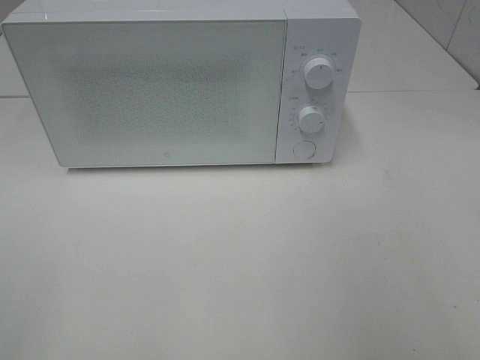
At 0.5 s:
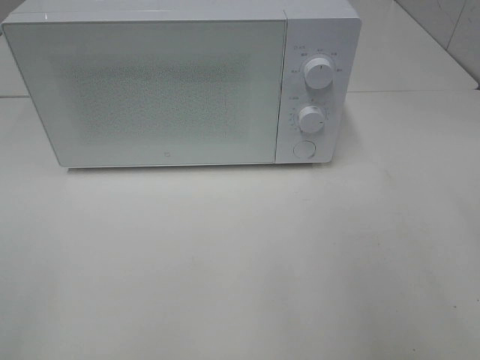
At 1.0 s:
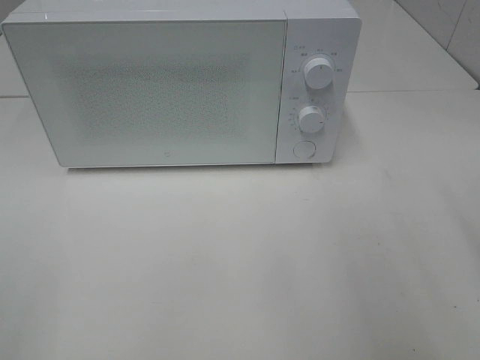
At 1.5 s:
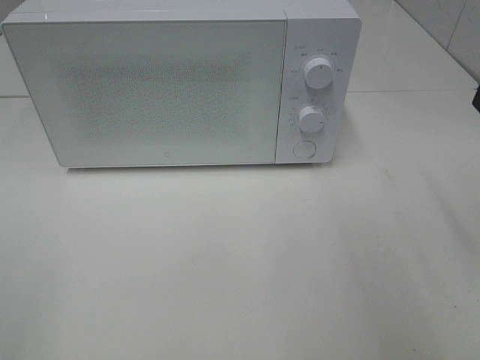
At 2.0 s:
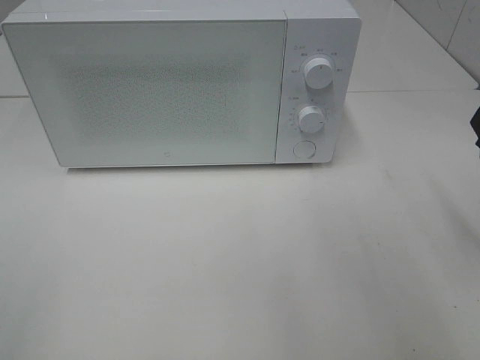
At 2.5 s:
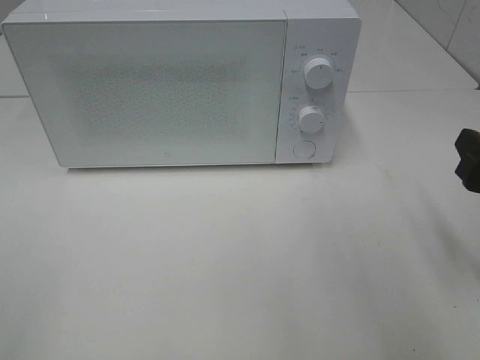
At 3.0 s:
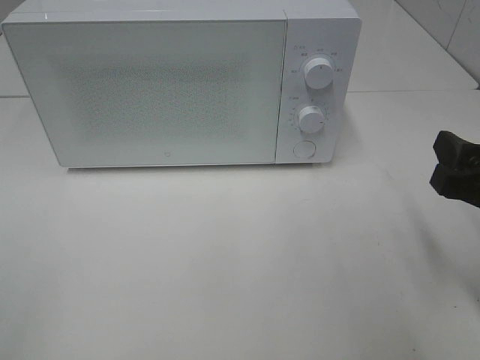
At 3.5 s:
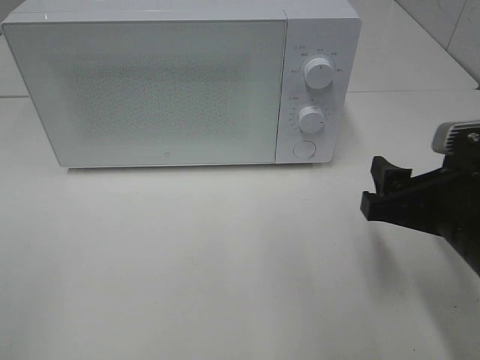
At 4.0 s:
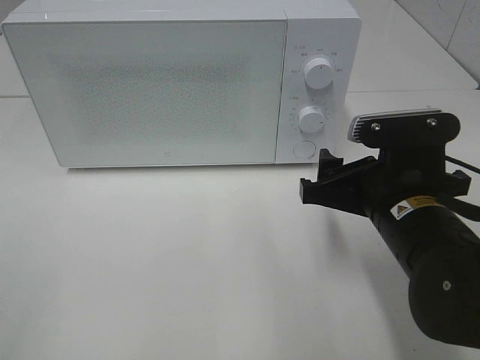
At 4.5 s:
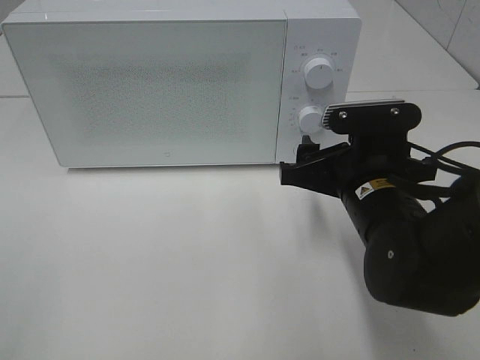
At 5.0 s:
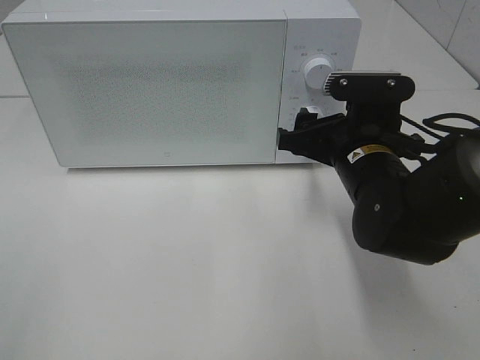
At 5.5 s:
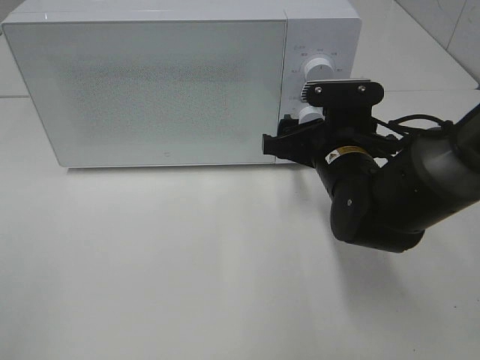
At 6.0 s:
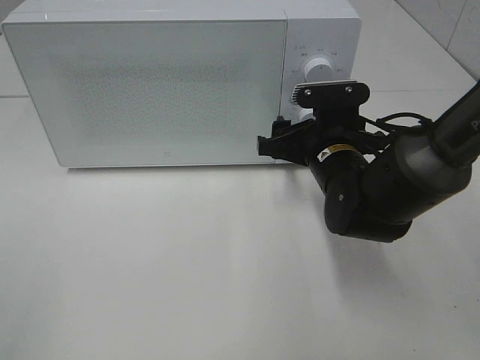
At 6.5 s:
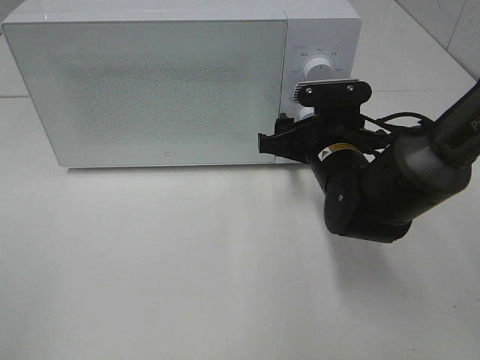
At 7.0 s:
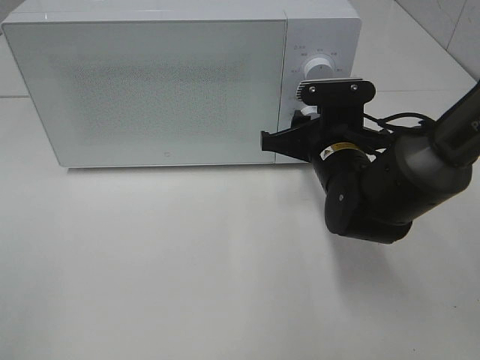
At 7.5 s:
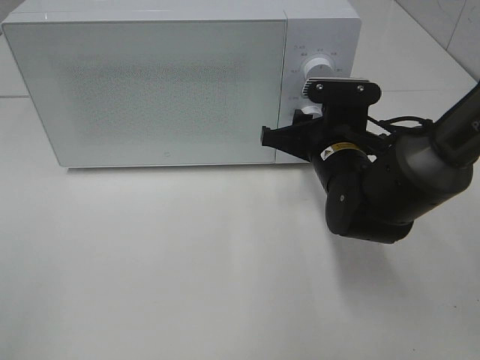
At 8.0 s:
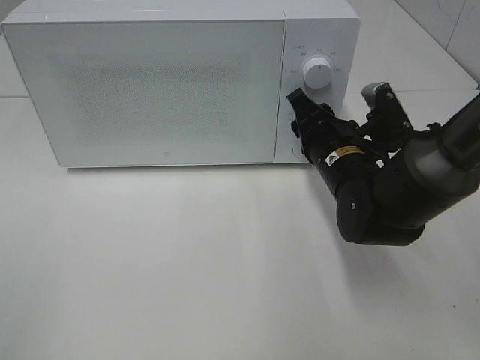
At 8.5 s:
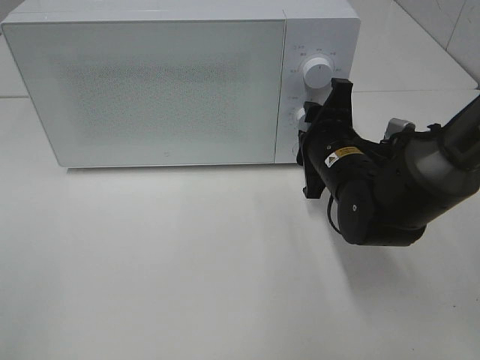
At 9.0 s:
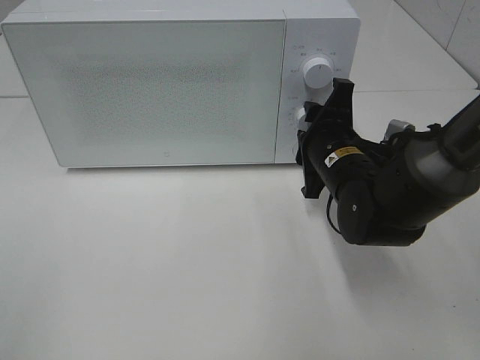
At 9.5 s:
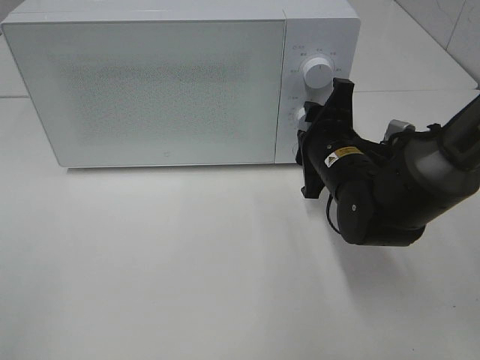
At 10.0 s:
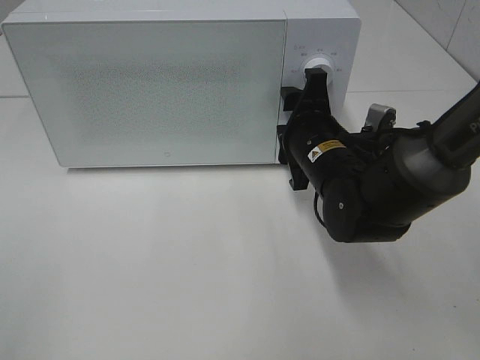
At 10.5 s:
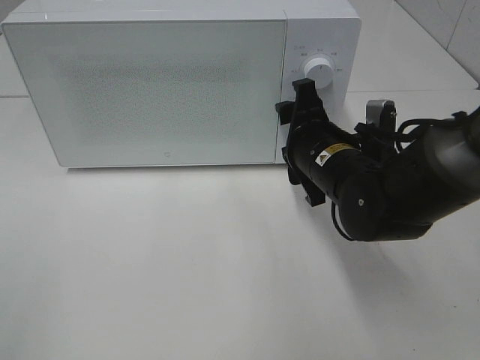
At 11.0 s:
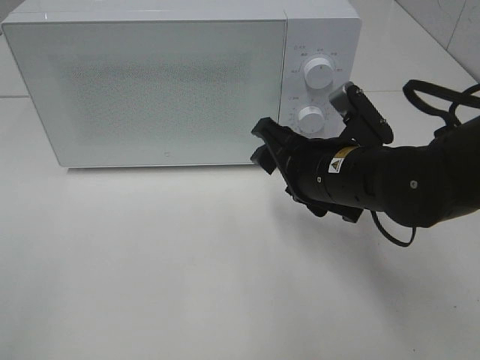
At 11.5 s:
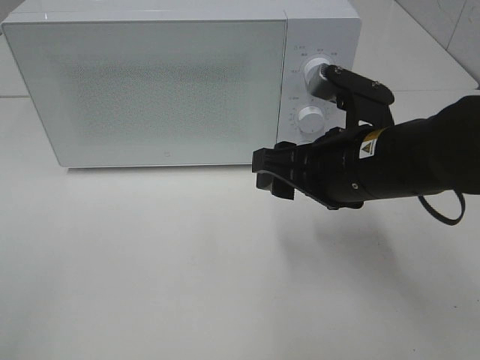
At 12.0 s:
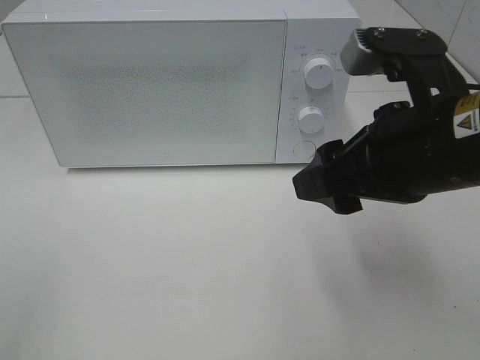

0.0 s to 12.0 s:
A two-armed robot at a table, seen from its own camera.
Task of the whole recording: Heat the burger.
Step, 0.0 to 9.5 s: Right hand: twist timer button.
2.0 to 4.0 s: The right gripper heads to the left, covering some 15 cm.
4.0 to 6.0 s: The right gripper goes roughly 10 cm forward.
6.0 to 8.0 s: The right gripper closes its fingers.
10.0 to 12.0 s: The right gripper shifts approximately 20 cm backward and upward.

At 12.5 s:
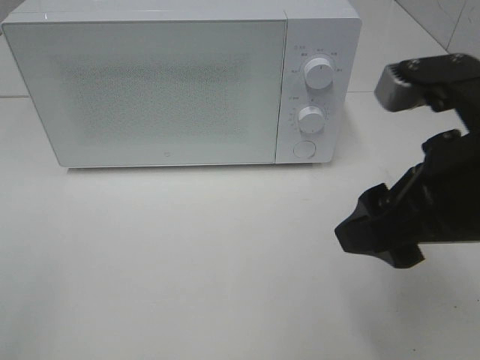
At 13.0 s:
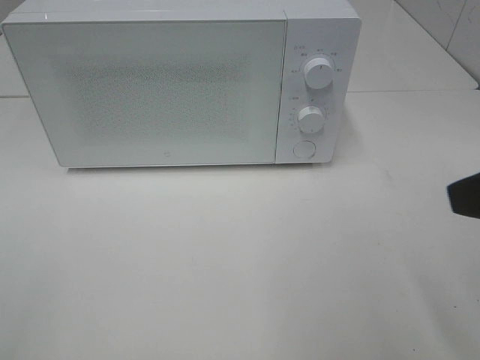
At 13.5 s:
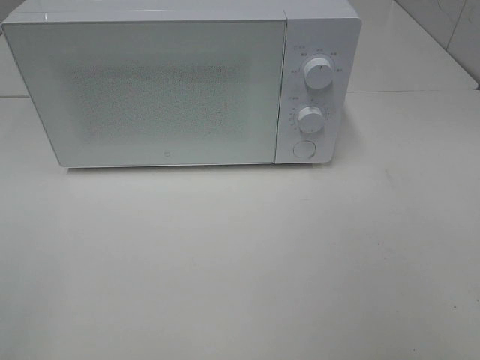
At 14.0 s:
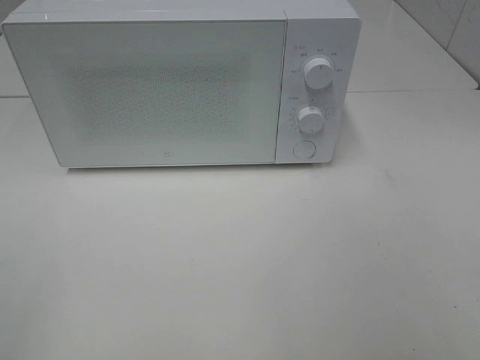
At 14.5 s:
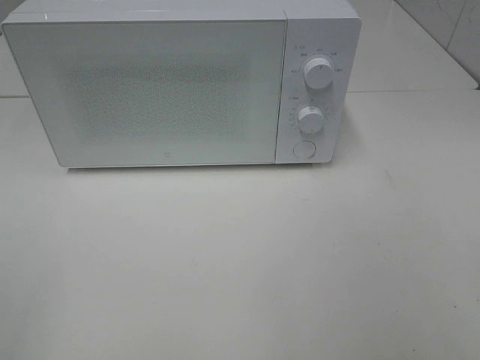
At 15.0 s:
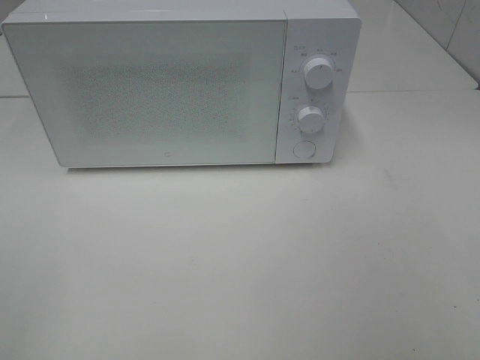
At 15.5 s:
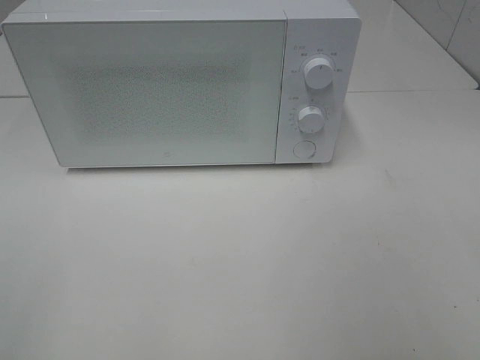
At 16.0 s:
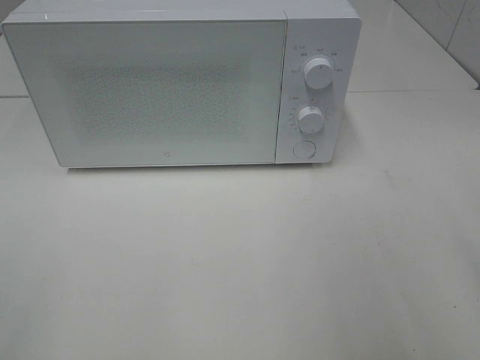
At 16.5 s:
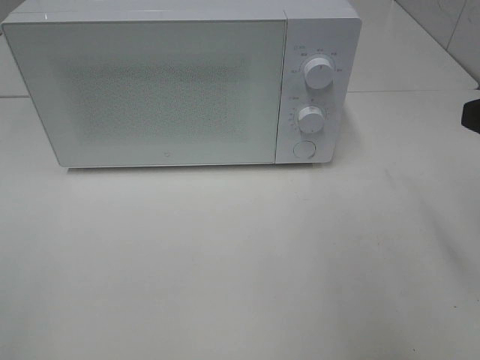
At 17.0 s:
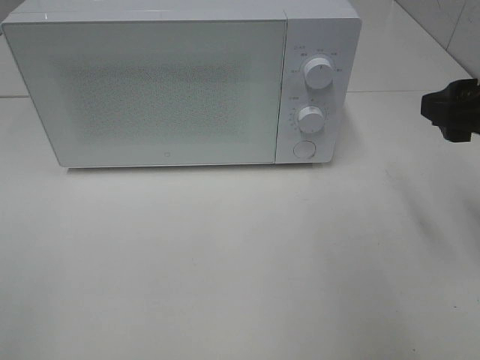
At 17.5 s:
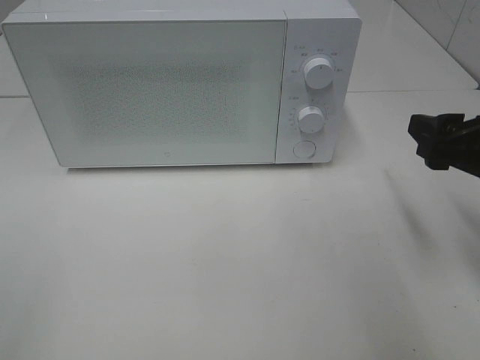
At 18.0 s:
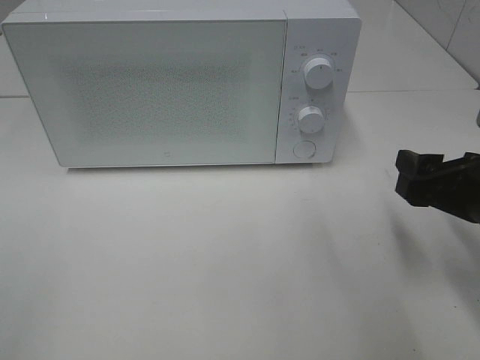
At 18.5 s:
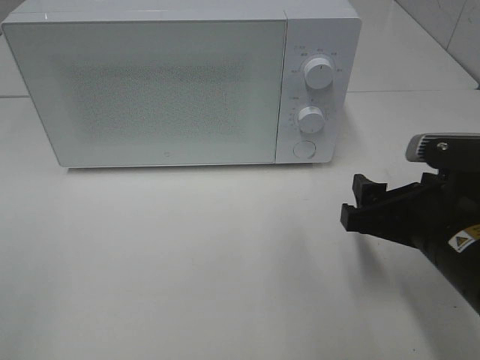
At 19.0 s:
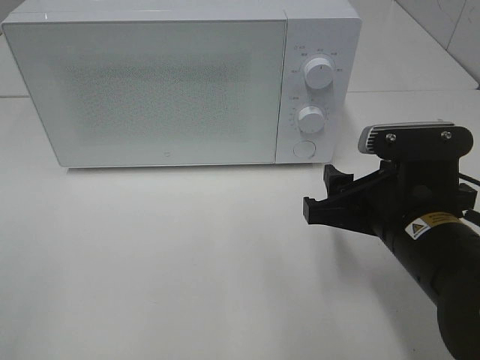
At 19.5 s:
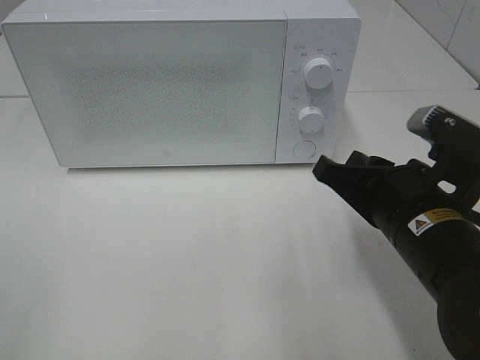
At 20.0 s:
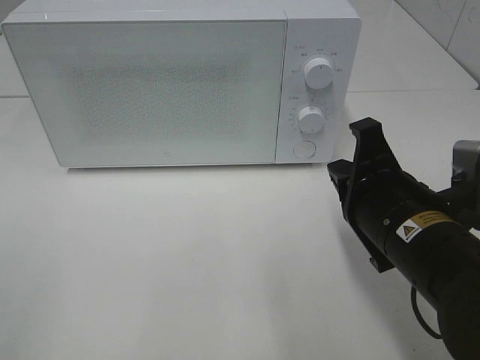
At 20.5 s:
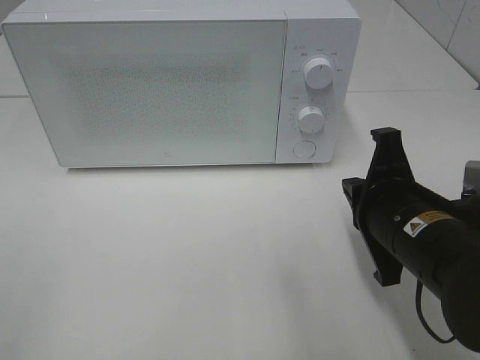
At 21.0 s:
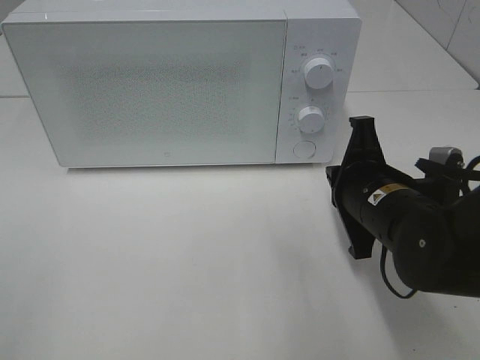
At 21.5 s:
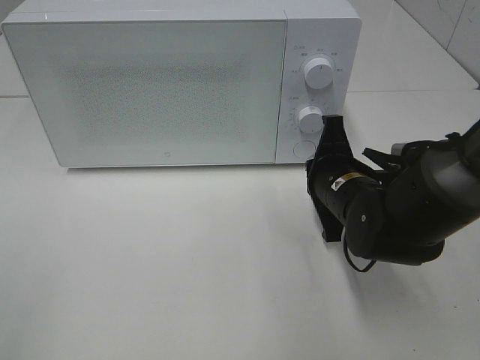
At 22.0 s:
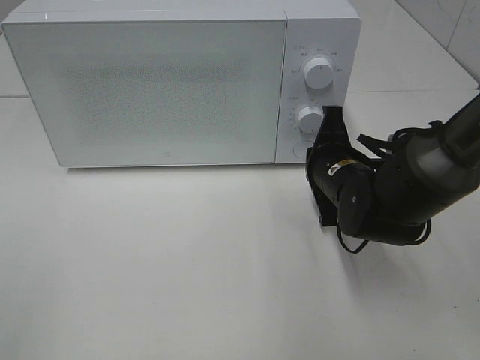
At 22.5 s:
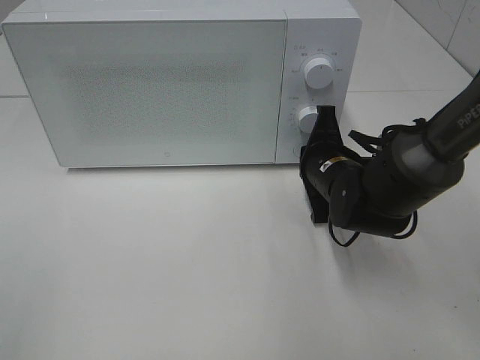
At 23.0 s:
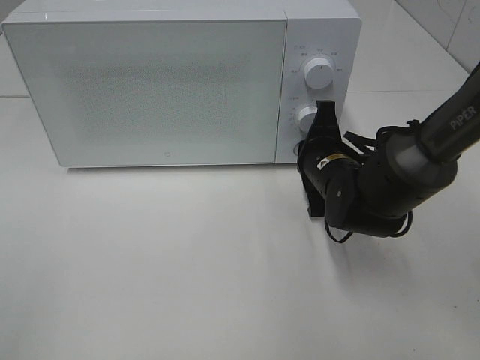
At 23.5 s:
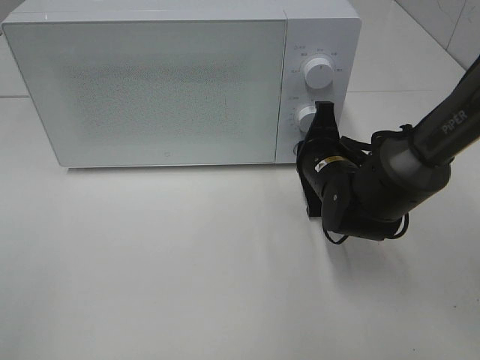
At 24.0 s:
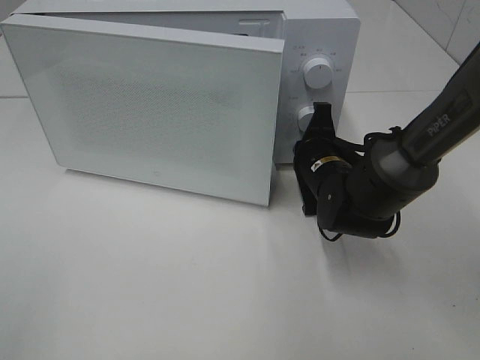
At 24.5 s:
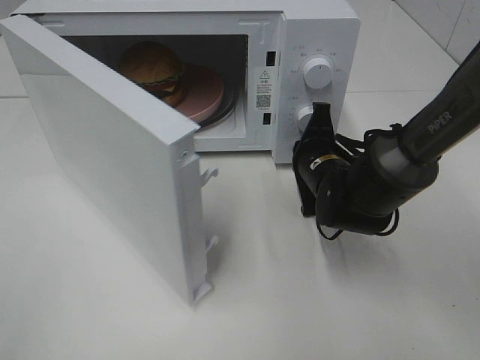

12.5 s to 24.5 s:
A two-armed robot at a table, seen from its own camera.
Task of the whole recording: Heat the burger.
12.5 to 14.5 s: The right gripper is displaced backward and to the right by approximately 20 cm.
16.5 to 18.5 s: The right gripper heads downward and to the left, covering about 15 cm.
18.5 to 20.5 s: The right gripper closes up.
20.5 to 22.5 s: The right gripper moves forward and downward, about 15 cm.

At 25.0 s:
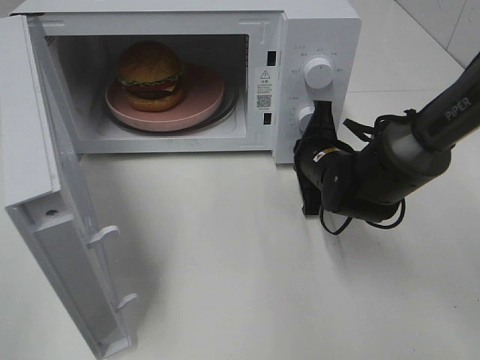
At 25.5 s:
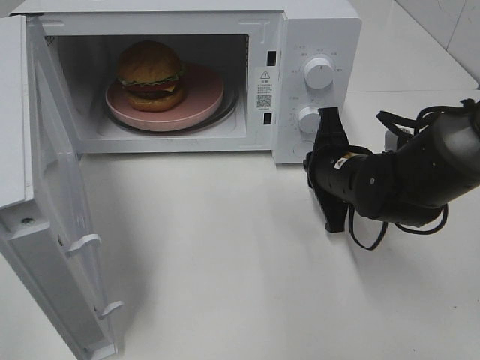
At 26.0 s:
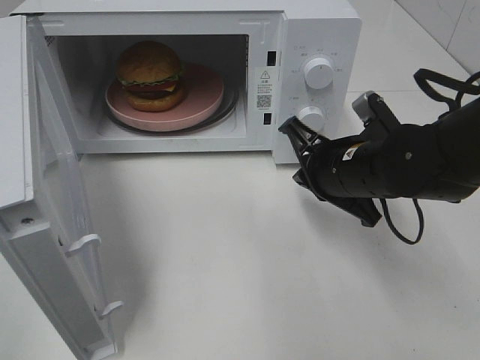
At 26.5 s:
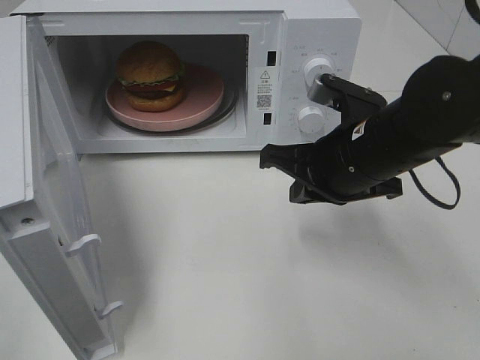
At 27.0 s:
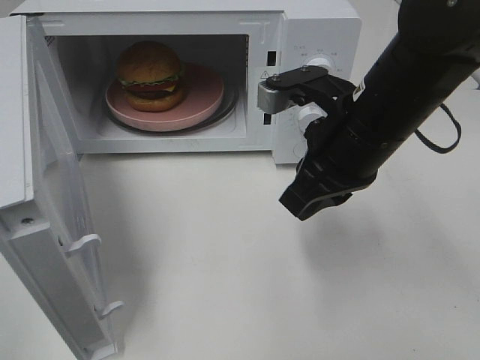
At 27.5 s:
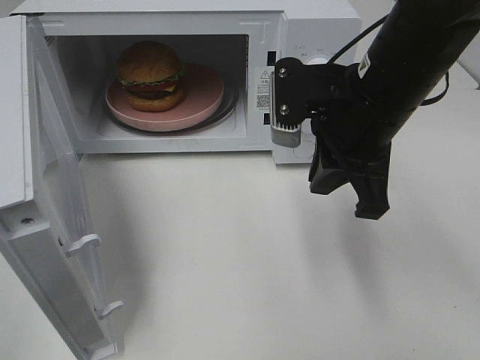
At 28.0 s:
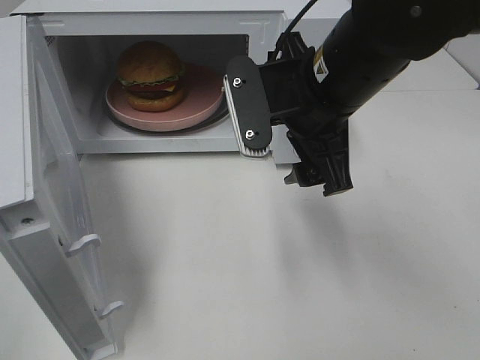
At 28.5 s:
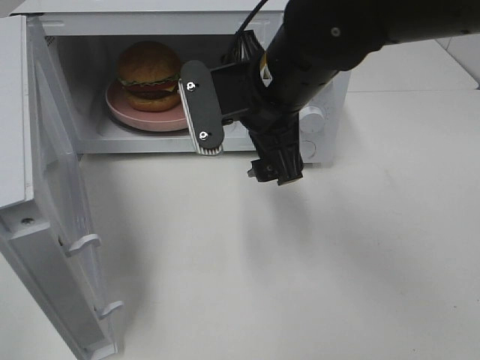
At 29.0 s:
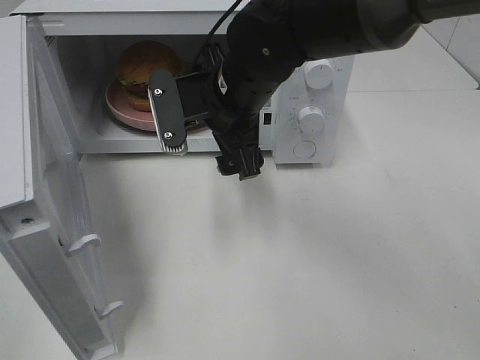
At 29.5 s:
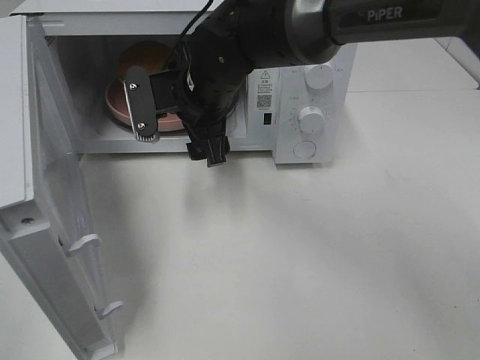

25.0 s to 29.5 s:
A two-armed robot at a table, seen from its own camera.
Task of the whole recording: Heat the burger.
25.0 to 27.0 s: The right gripper heads upward and backward, covering approximately 15 cm.
27.0 to 29.5 s: The right gripper shifts about 20 cm to the left and forward, and opens up.
